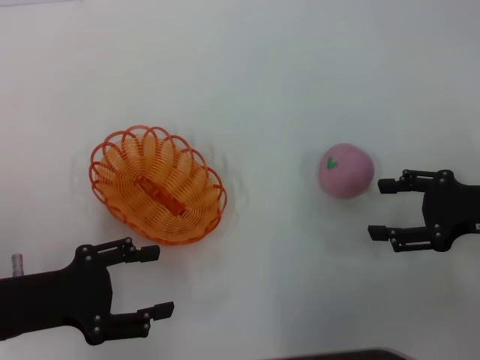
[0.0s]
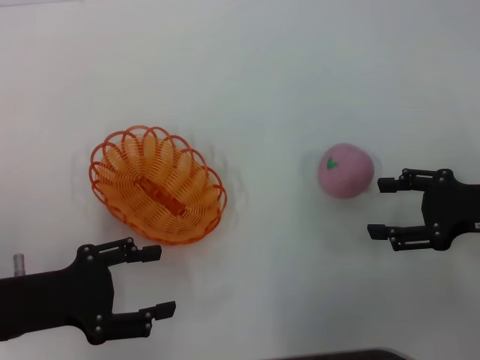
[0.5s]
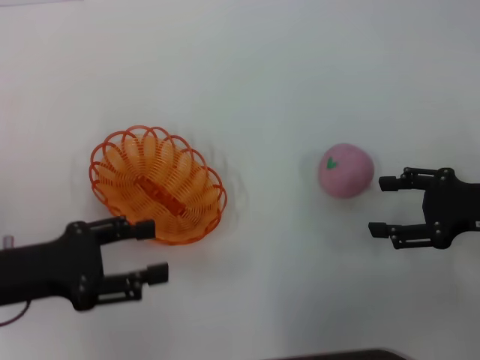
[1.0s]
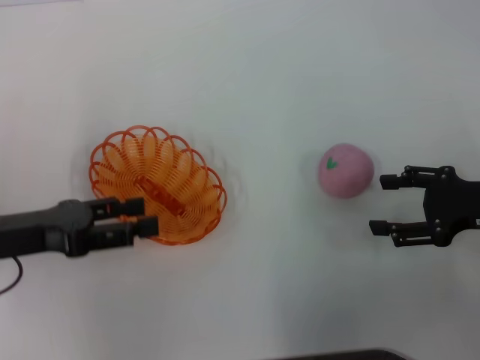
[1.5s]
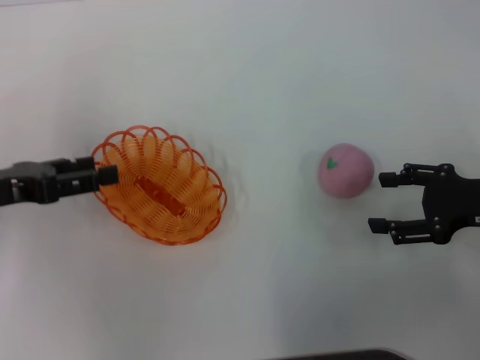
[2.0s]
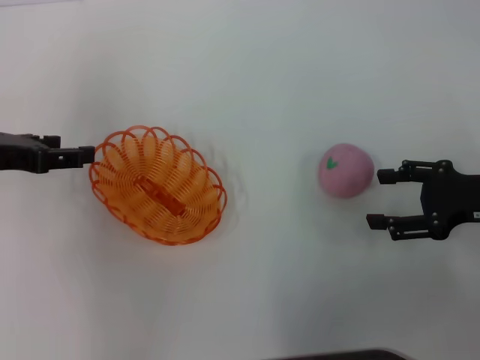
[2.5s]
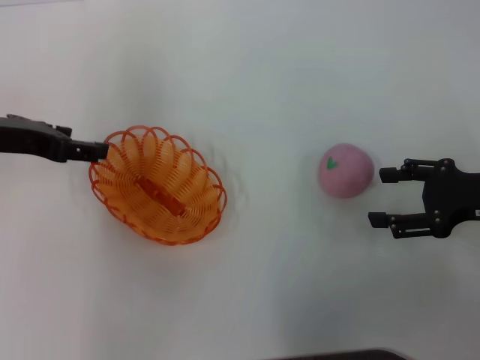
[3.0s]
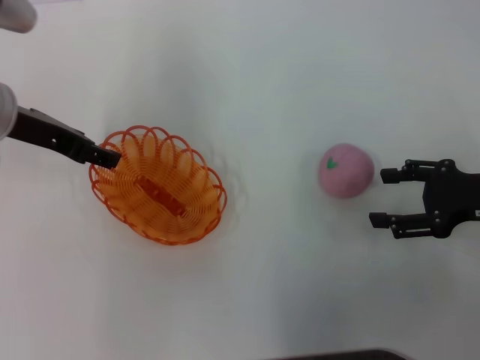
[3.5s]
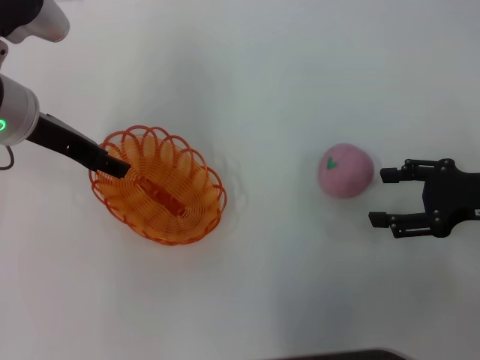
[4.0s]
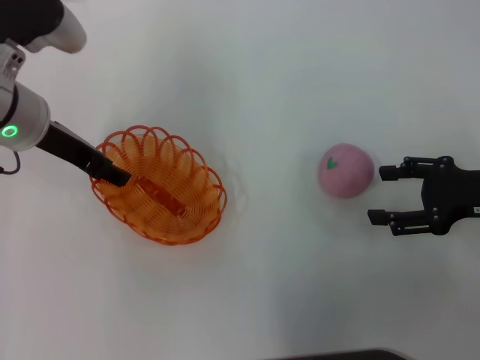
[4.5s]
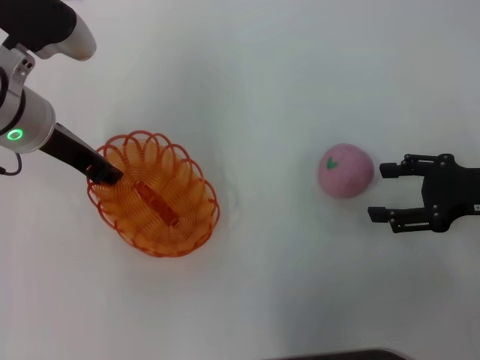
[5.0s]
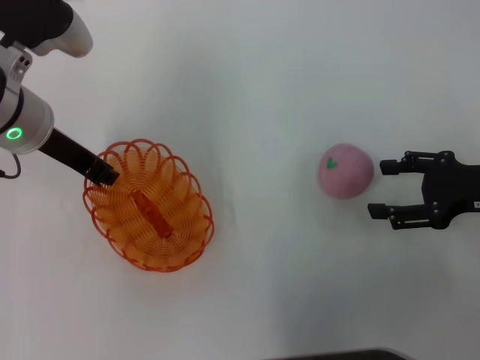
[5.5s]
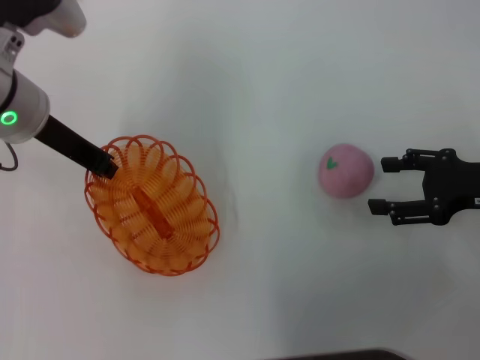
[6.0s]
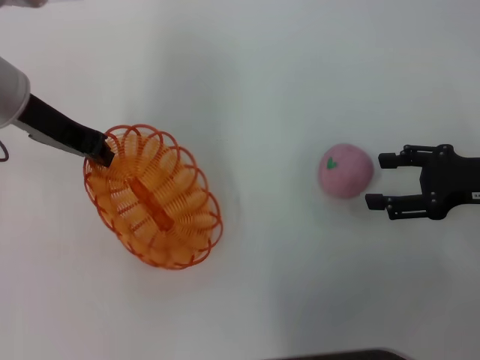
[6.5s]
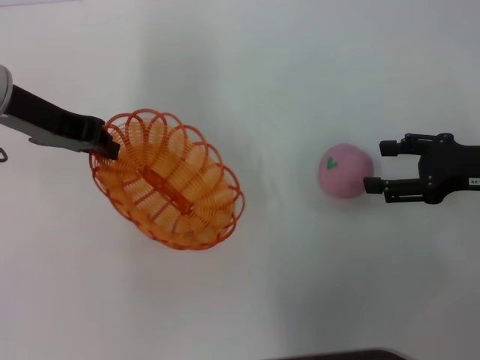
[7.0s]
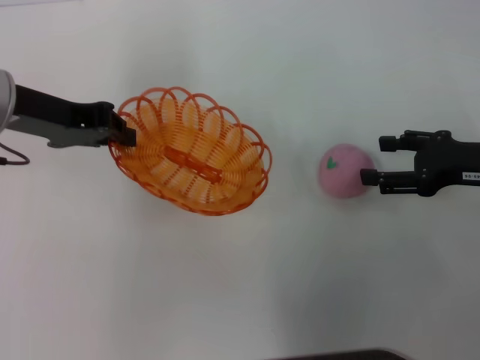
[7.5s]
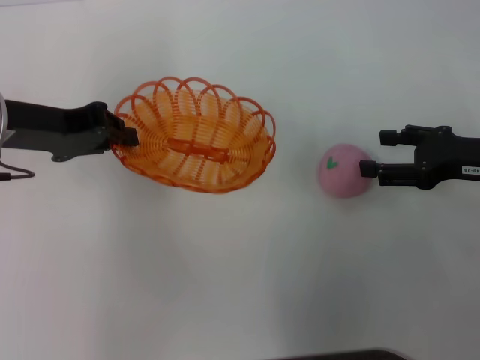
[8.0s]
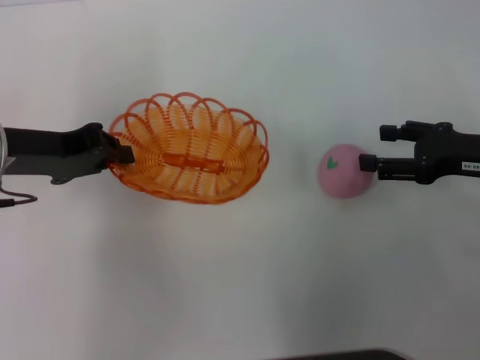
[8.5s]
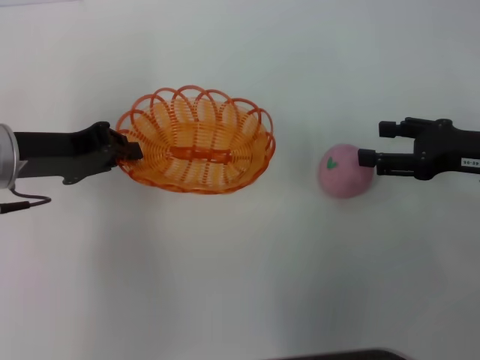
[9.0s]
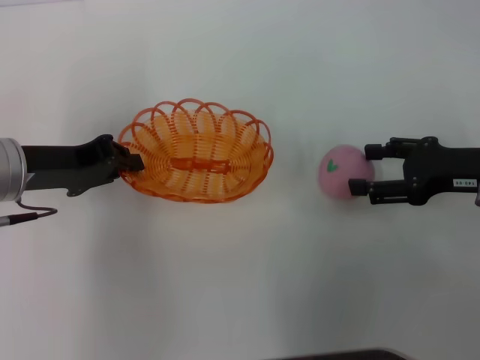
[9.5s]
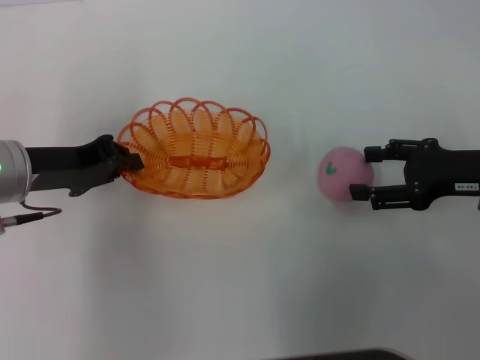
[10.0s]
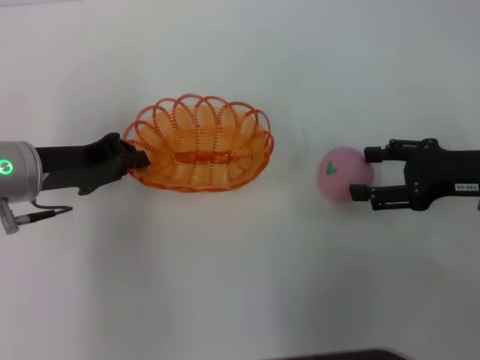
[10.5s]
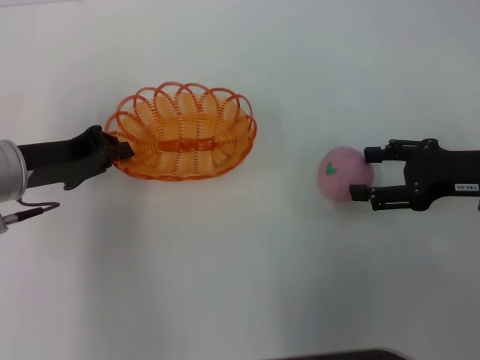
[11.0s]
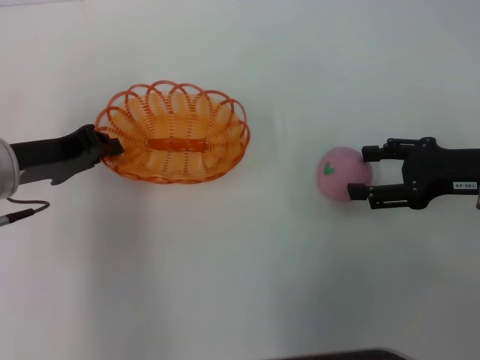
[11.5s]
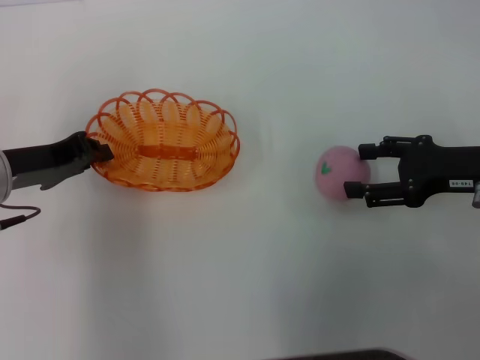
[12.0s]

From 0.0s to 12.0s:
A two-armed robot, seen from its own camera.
Step, from 0.0s to 6.0s: Pick up the basket with the left gripper.
From 0.0s to 2.0s: The left gripper goes roughly 10 cm forward and upward.
From 2.0s to 4.0s: The left gripper travels to the right and forward by roughly 15 cm.
From 4.0s to 6.0s: The left gripper closes its fingers.
From 6.0s to 8.0s: The left gripper moves about 5 cm.
From 8.0s to 10.0s: The left gripper goes about 5 cm downward.
From 10.0s to 12.0s: The grippers make only small movements.

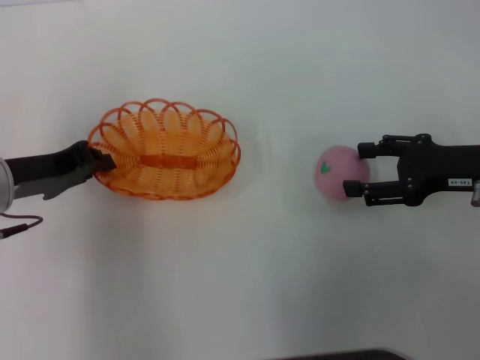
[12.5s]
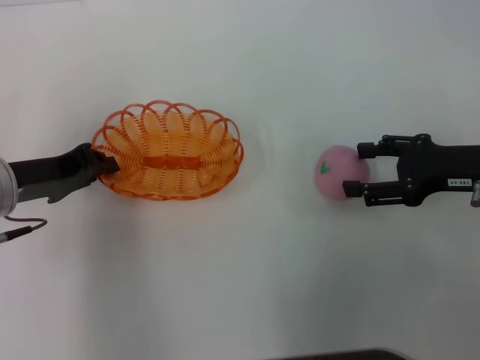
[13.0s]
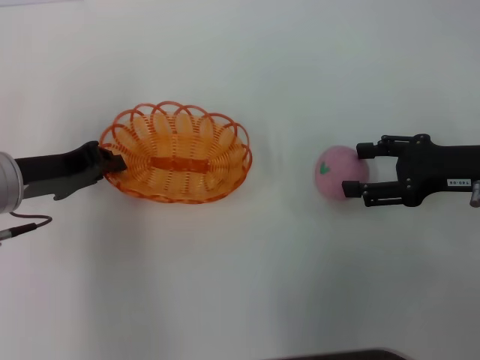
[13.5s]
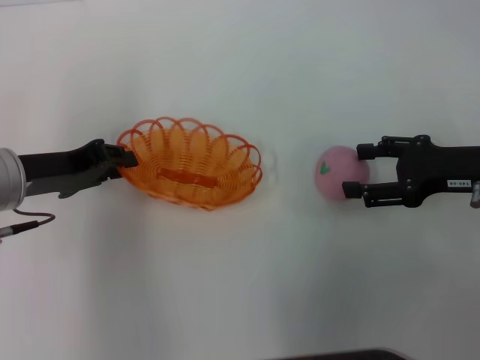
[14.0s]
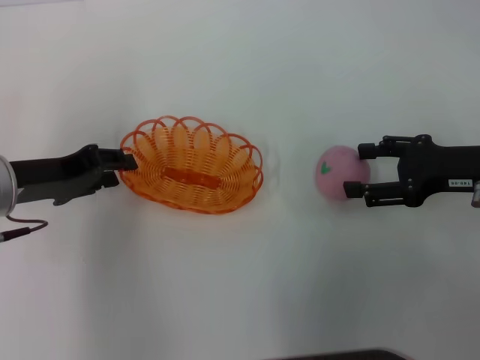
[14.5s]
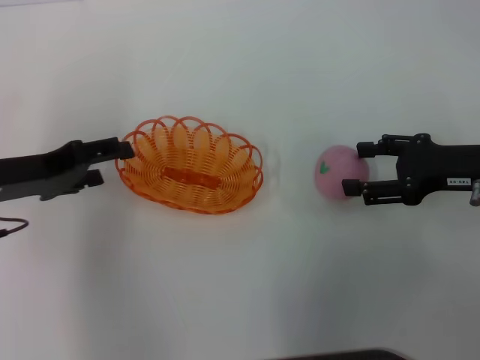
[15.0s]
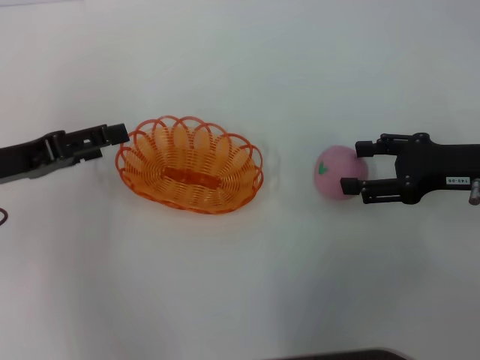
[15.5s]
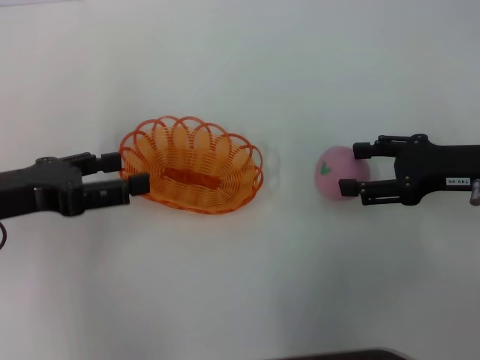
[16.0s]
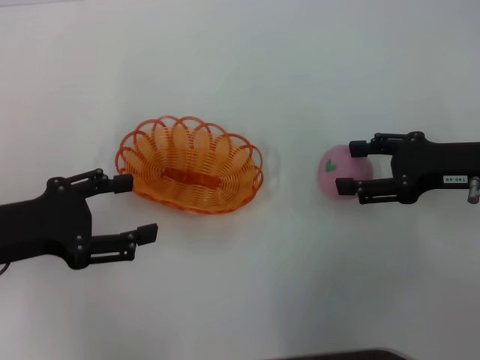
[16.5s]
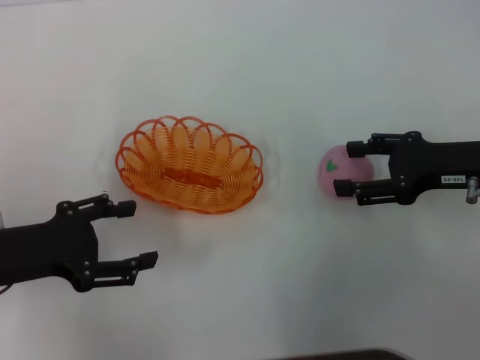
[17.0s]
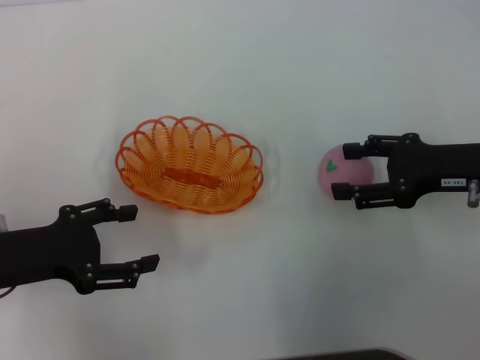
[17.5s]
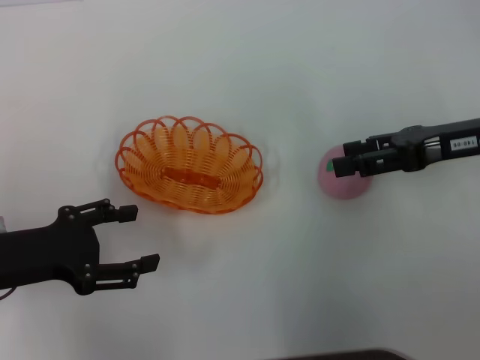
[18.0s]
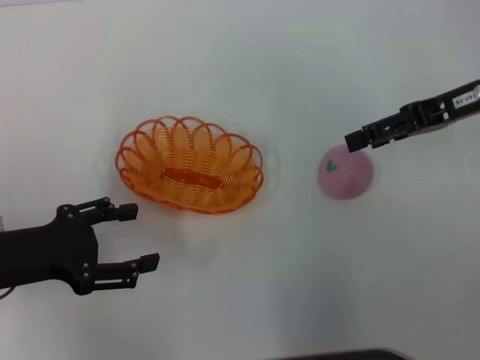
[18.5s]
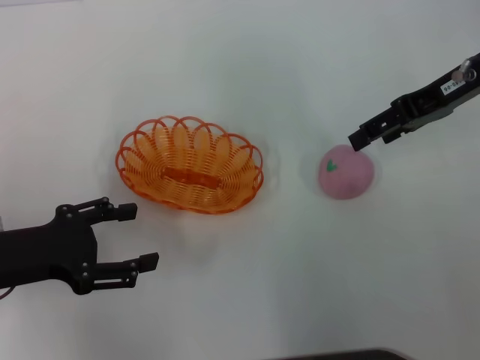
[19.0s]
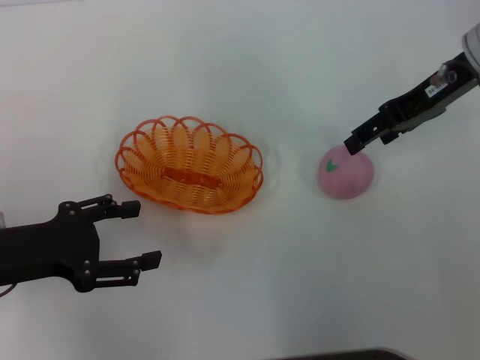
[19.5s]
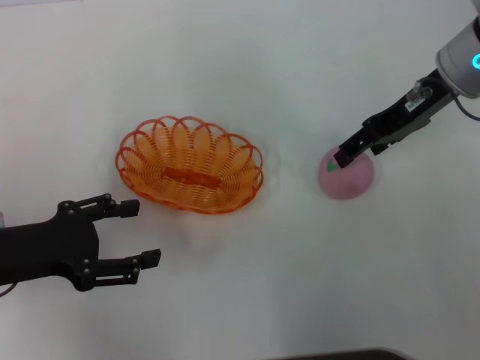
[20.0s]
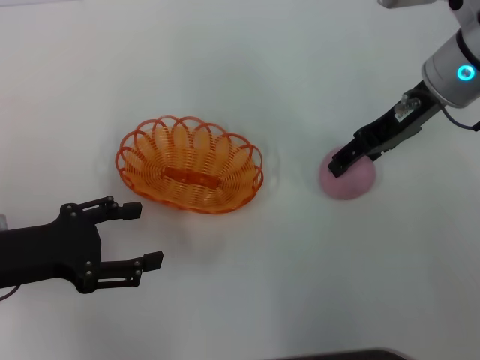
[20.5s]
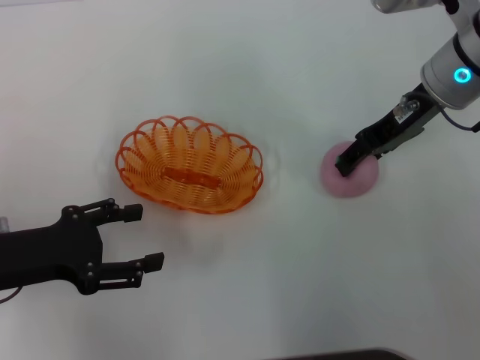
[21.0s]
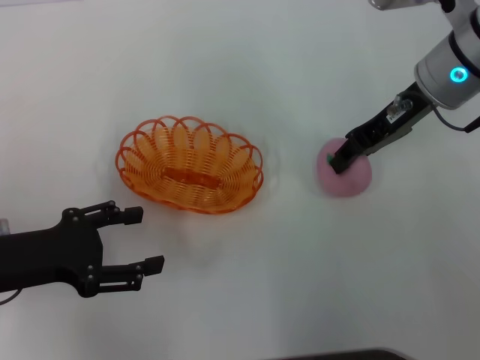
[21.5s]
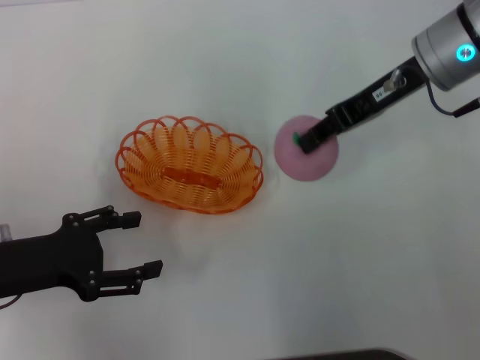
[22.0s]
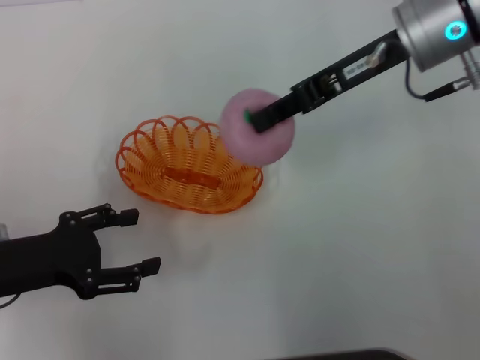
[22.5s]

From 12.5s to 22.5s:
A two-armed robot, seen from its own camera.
Step, from 12.5s to 14.5s: Place the basket in the center of view with the left gripper.
Step, from 15.0s to 22.0s: Pick up the peach with the right gripper.
From 12.5s to 14.5s: The left gripper opens its fingers.
From 14.5s to 16.5s: The left gripper heads backward, covering some 5 cm, and opens up.
From 16.5s to 18.5s: The right gripper heads upward and forward, covering approximately 10 cm.
From 18.5s to 20.5s: The right gripper travels to the left by roughly 5 cm.
From 20.5s to 22.5s: The right gripper ends up approximately 5 cm from where it was, and closes.

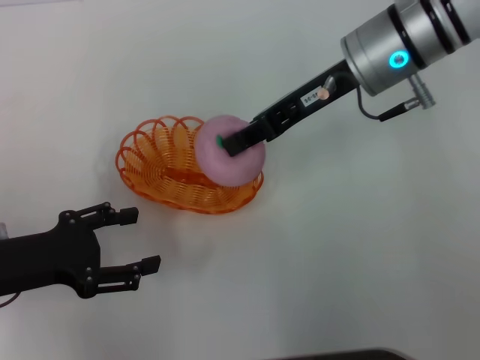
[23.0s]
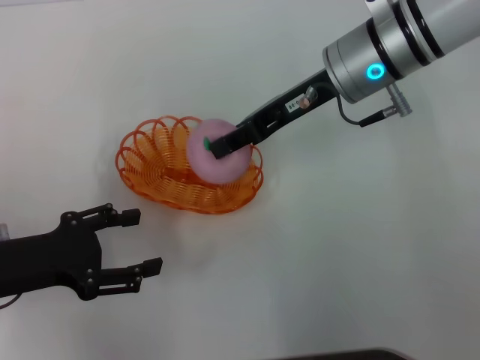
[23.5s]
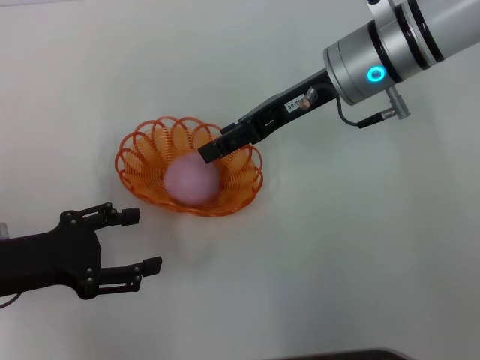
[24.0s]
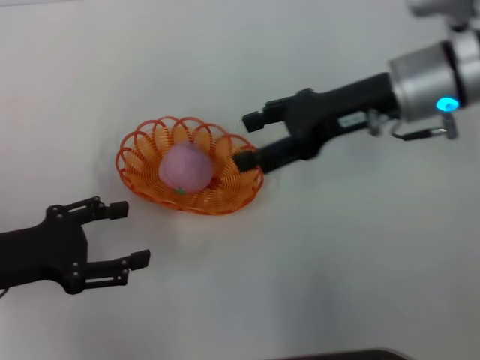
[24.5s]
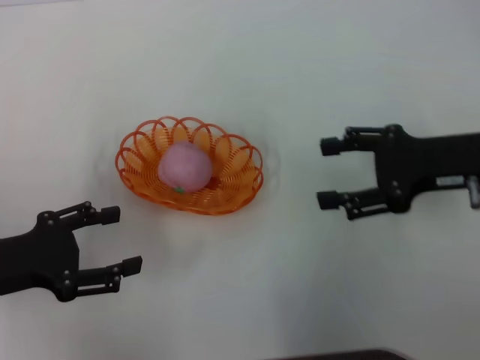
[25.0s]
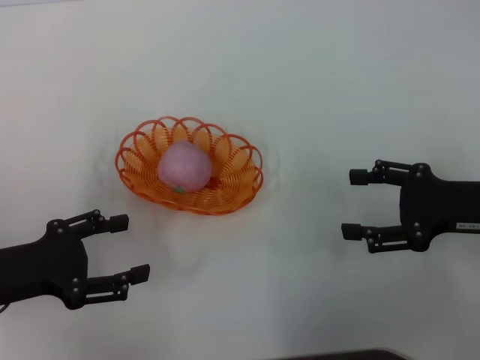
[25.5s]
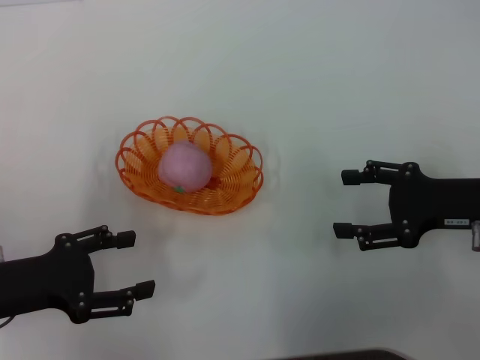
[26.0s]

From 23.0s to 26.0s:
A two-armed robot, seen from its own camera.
Step, from 23.0s to 24.0s: Place the peach into the basket with the right gripper.
From 23.0s to 24.5s: The right gripper ends up roughly 5 cm from where it was, and opens up.
From 24.5s to 26.0s: The right gripper goes about 15 cm to the right, backward and downward.
